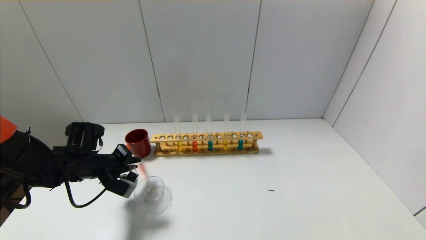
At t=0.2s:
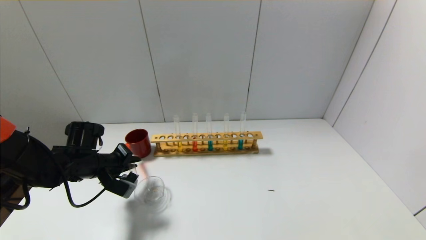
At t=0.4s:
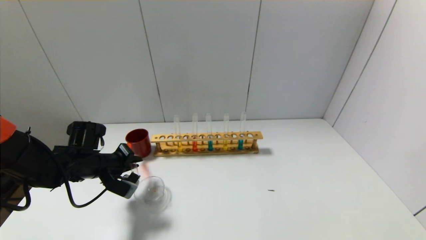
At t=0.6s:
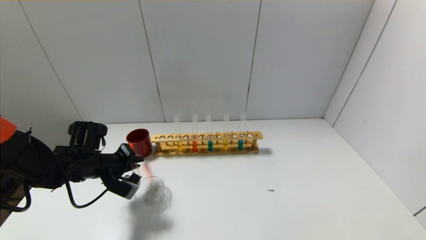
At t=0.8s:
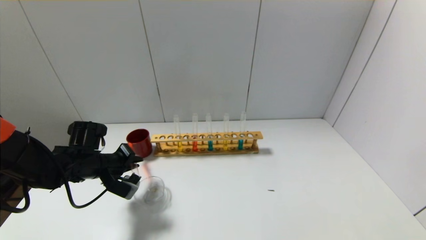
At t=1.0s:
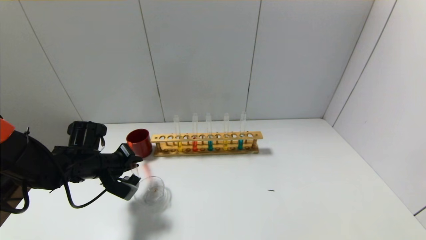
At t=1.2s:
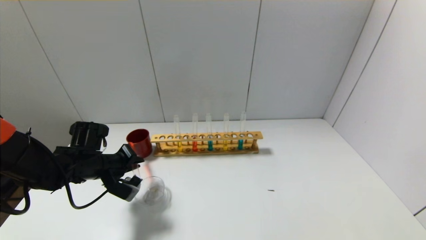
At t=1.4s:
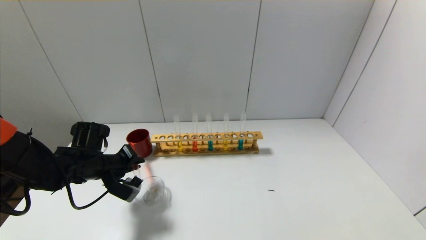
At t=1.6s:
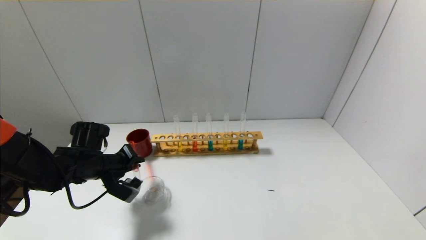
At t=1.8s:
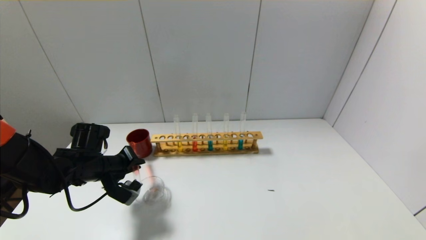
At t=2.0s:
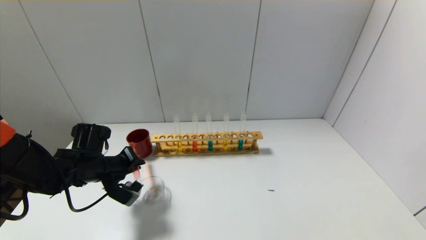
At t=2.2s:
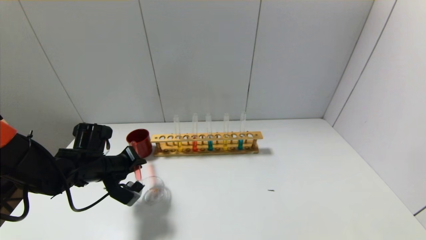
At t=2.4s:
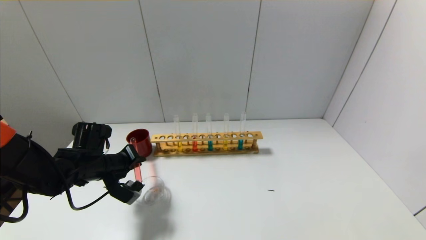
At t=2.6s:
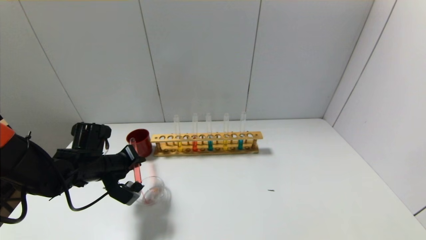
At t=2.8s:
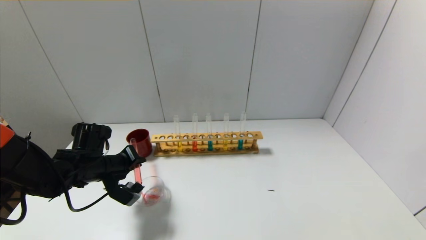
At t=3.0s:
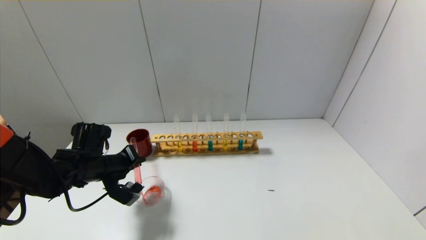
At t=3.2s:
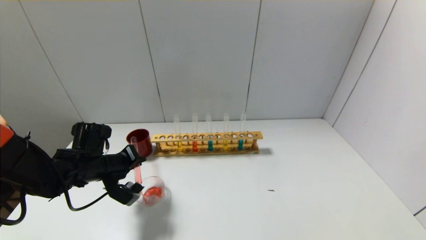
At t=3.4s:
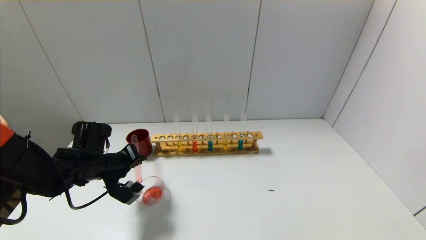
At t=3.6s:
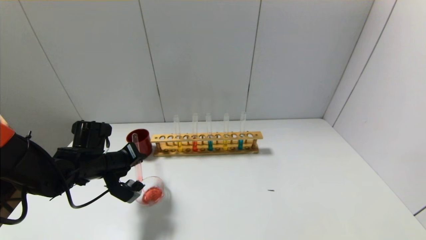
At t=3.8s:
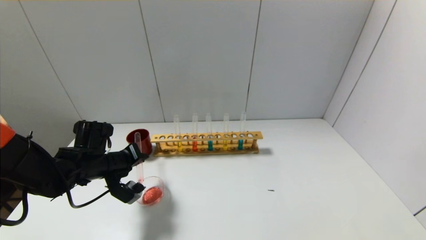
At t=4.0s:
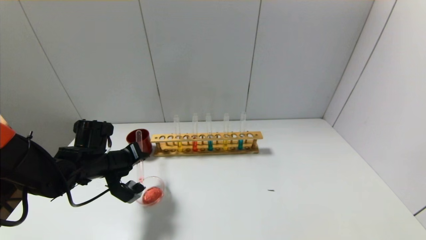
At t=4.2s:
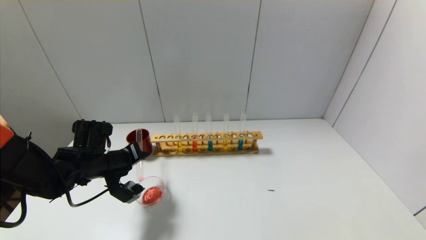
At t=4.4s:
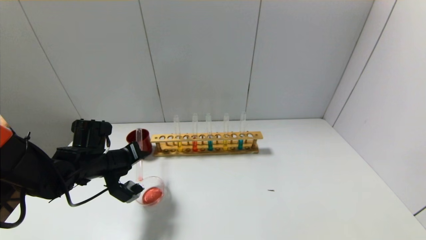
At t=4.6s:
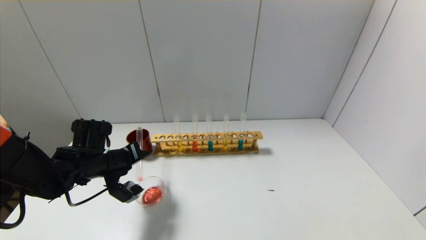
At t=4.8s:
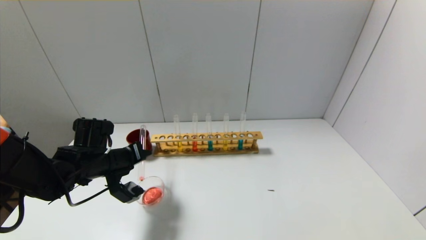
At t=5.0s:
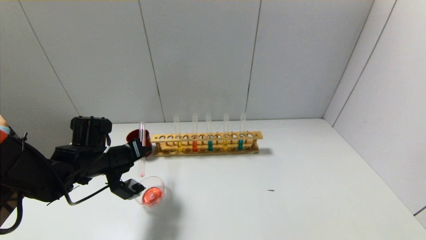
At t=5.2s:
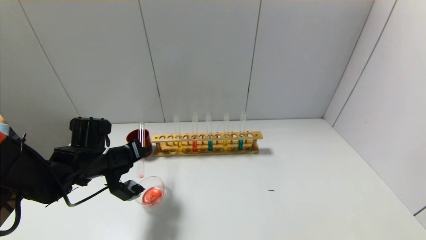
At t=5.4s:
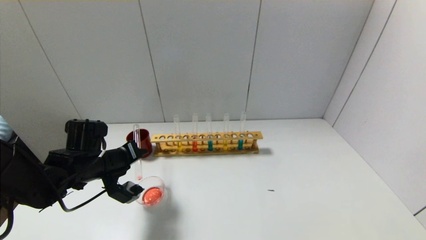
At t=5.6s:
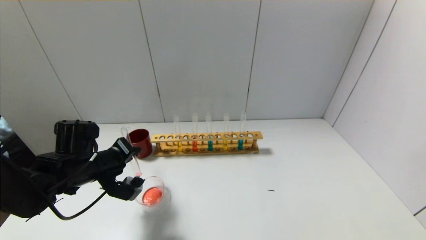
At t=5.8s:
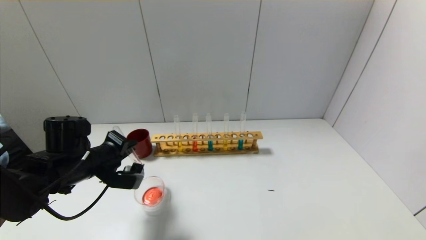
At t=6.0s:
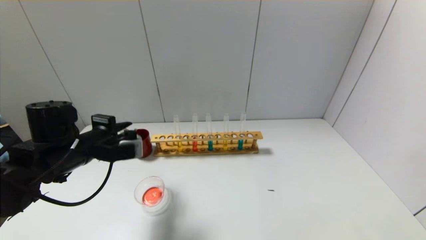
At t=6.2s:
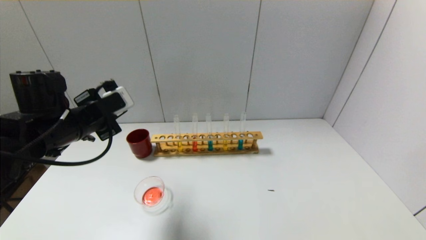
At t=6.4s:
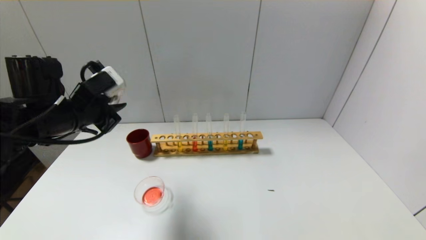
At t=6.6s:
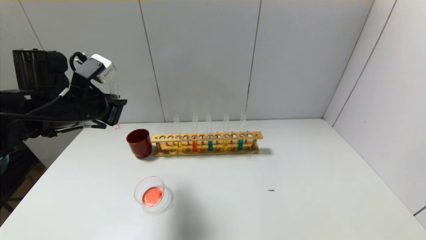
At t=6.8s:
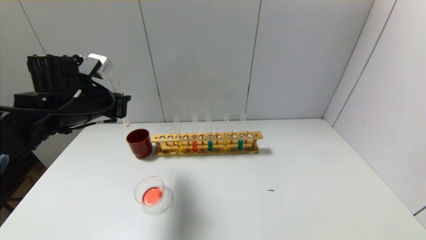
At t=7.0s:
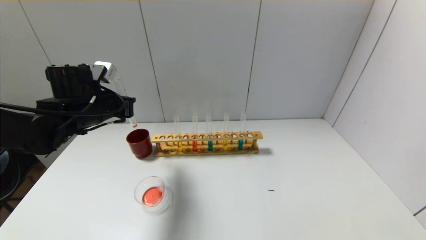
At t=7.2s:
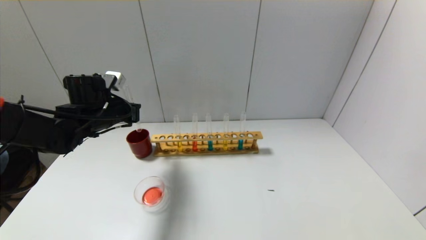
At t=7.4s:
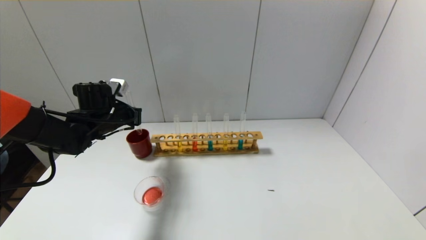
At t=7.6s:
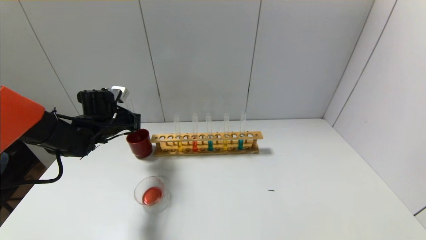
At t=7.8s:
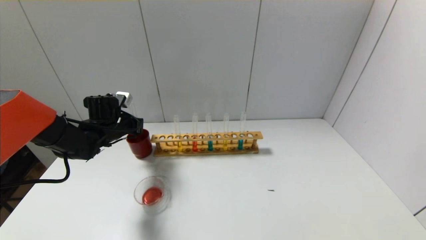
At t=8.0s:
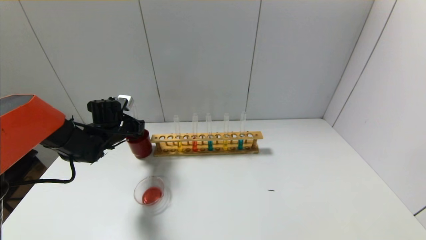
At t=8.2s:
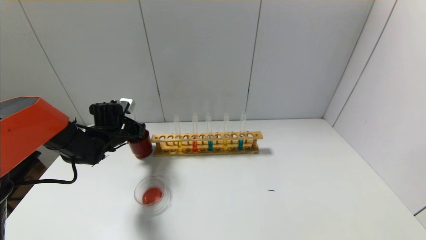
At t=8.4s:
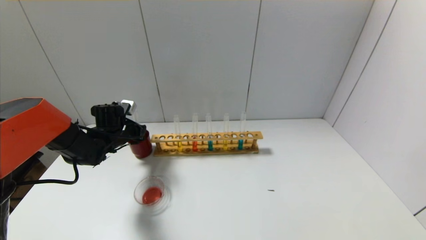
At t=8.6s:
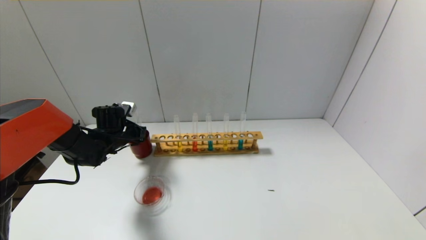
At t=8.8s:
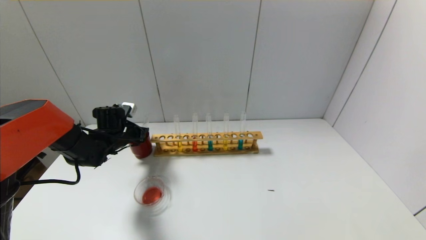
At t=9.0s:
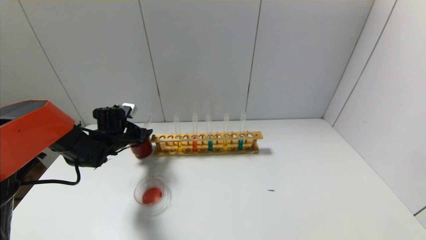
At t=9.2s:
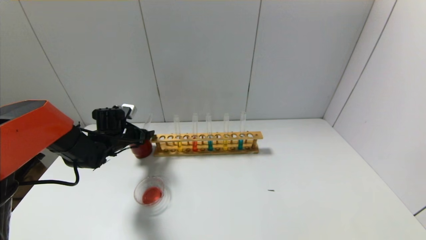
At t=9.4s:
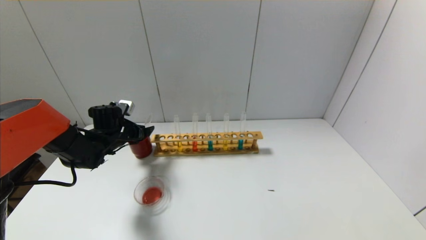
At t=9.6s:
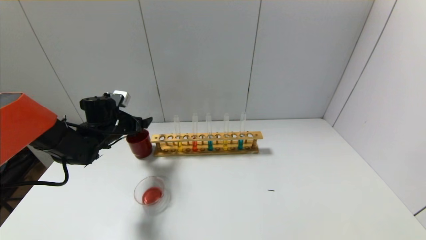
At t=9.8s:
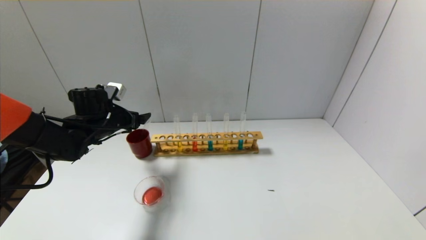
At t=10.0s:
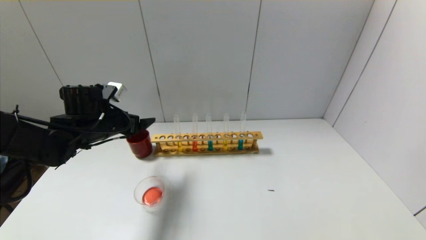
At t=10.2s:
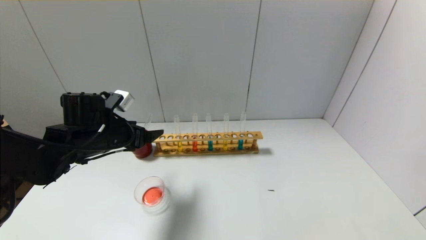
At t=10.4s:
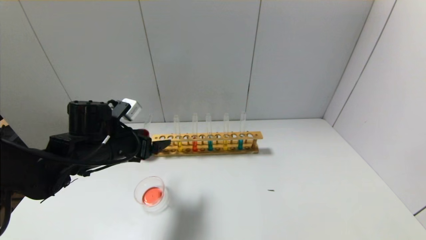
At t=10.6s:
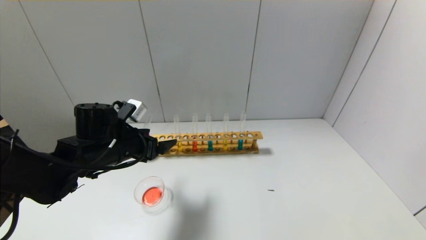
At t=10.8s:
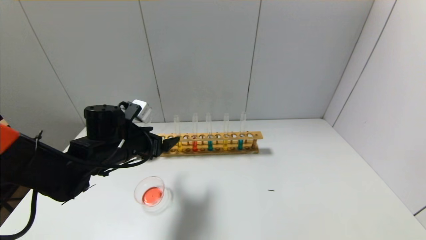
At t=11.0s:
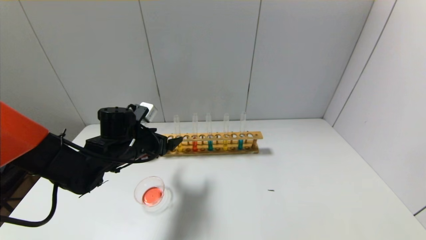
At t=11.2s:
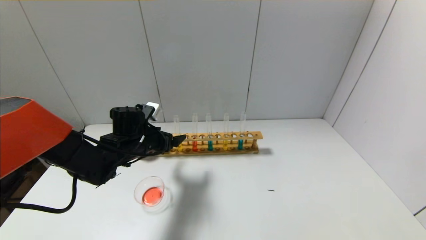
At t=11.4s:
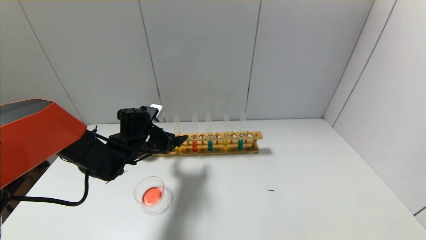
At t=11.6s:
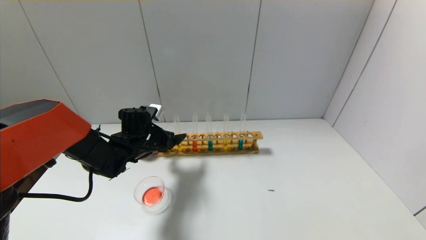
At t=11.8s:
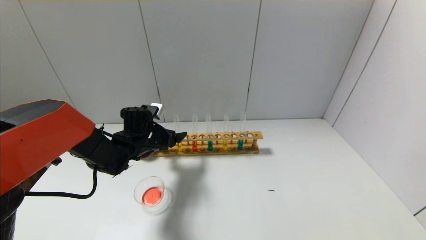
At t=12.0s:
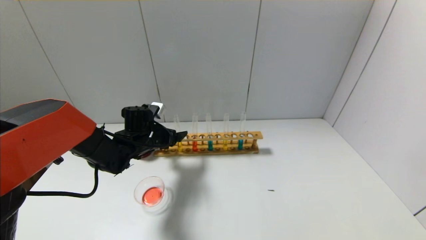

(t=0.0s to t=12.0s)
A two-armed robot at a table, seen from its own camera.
Step, t=0.0s - t=5.8s: Pour the red reagent into the graduated cylinder with the left gripper.
Step, t=6.0s - t=9.0s: Place the test tube into the brown cup with the left gripper.
t=0.0s - t=3.0s: The grippers stay close to where they were, moving slightly.
t=3.0s - t=4.4s: There are only small adjustments of the grippers.
t=4.4s - t=6.0s: The left gripper is displaced upward by roughly 10 cm.
t=6.0s - t=7.6s: The left gripper is displaced forward by about 15 cm.
t=7.6s - t=9.0s: The left gripper heads downward, covering some 5 cm, and opens up.
t=9.0s - t=10.4s: The left gripper travels backward, upward and to the right by approximately 15 cm.
t=10.4s - t=12.0s: The left gripper heads forward and downward, covering some 10 cm.

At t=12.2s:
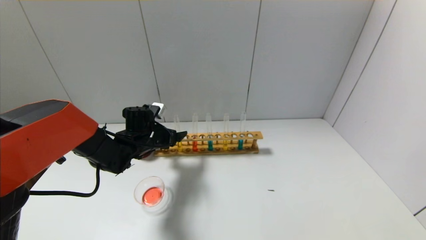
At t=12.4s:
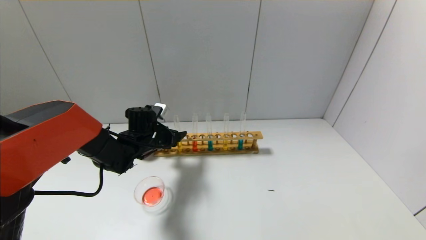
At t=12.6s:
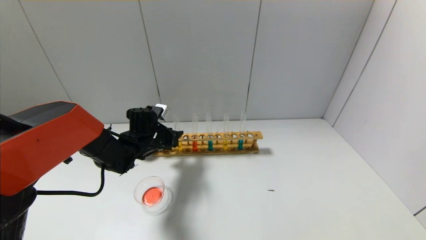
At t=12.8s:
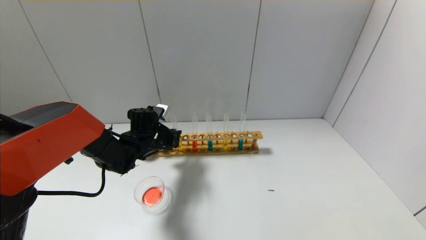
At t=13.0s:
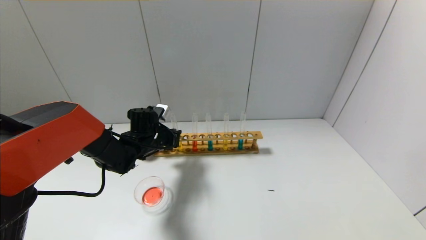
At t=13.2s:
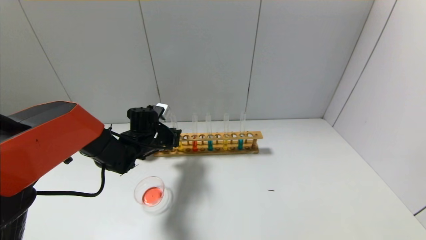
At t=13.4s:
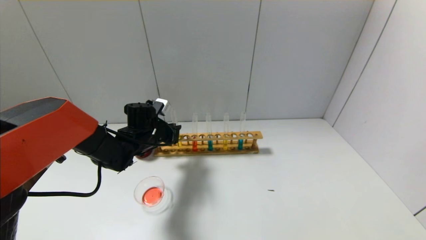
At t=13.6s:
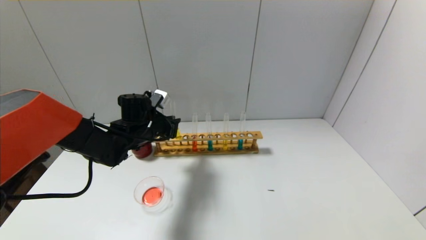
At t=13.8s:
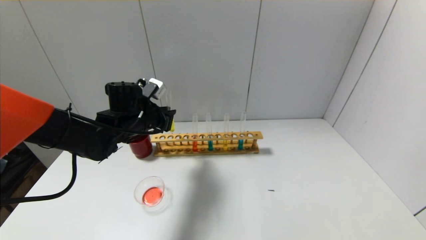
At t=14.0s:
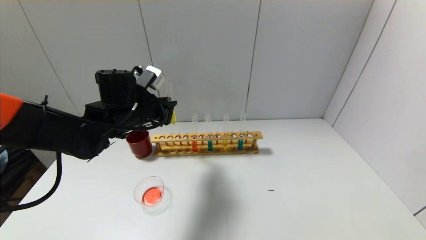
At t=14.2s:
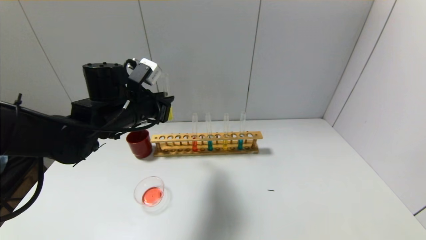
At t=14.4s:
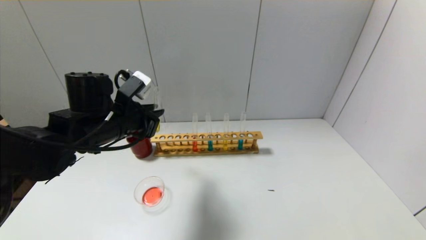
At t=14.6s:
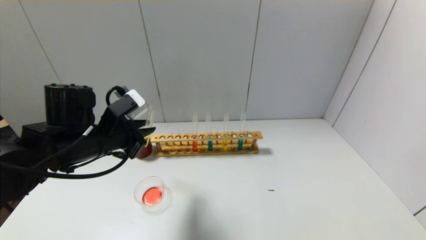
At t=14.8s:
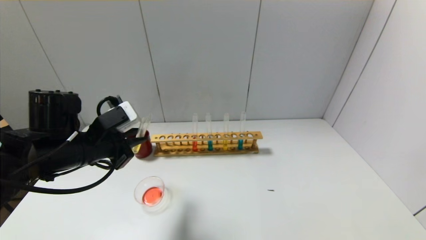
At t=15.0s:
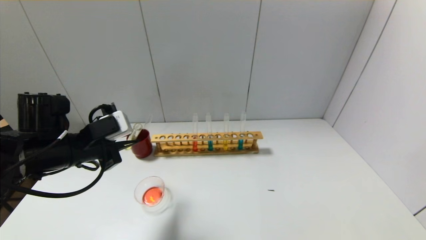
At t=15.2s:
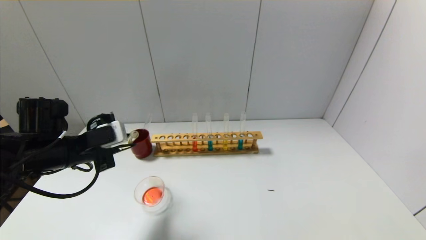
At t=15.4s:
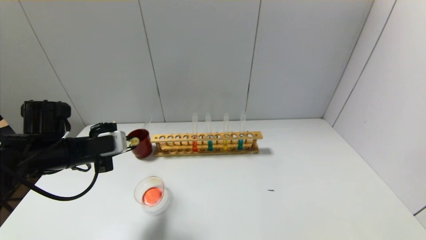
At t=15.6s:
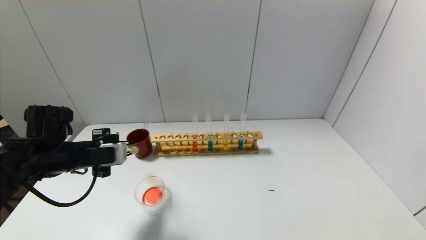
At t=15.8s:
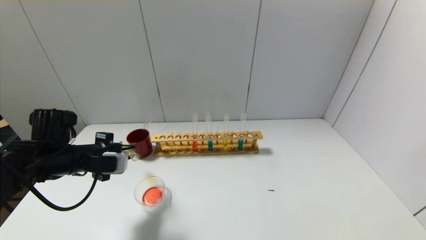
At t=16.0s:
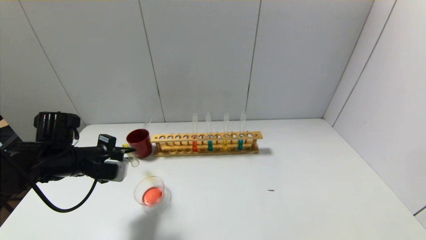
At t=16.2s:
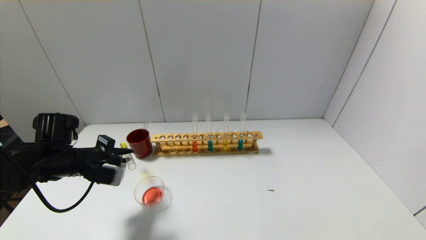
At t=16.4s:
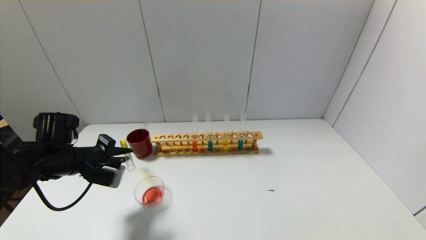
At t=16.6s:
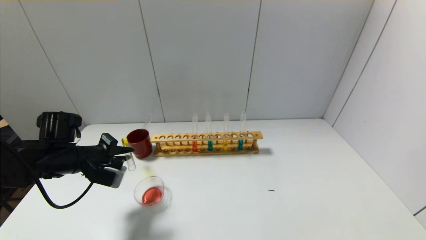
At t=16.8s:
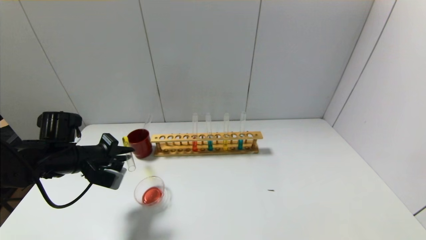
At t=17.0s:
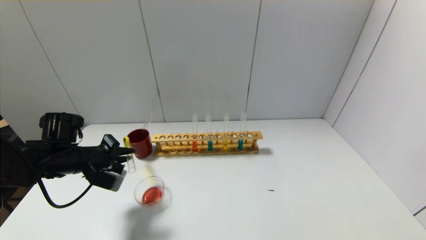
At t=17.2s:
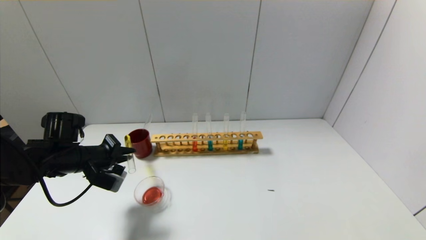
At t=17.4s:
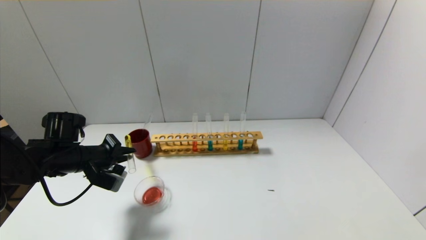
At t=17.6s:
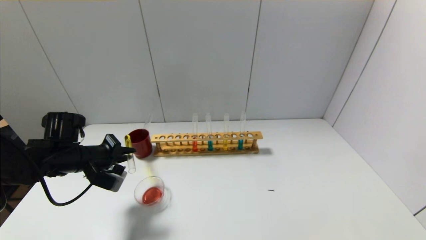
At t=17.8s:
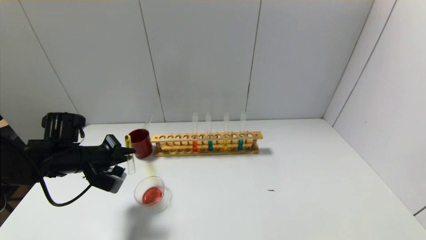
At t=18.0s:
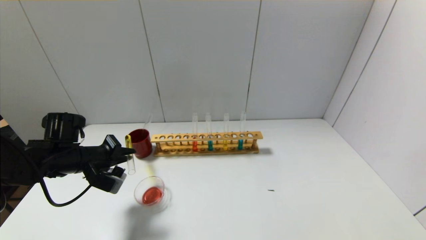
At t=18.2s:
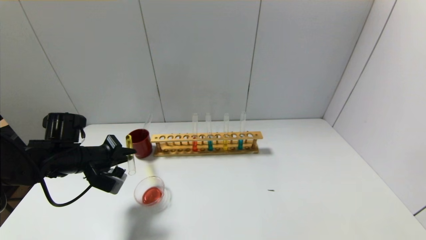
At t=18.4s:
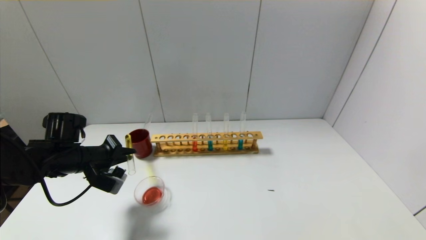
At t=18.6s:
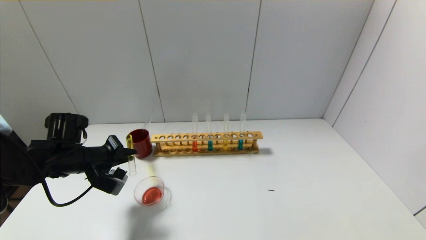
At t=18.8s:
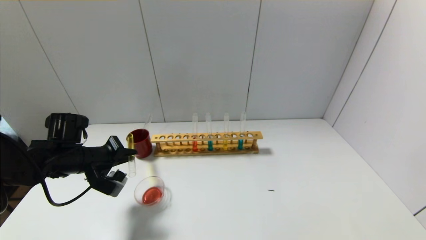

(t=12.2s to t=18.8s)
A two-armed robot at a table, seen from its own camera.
t=12.2s - t=13.8s: The left gripper shifts roughly 10 cm upward, and closes its fingers.
t=13.8s - t=15.4s: The left gripper goes approximately 15 cm to the left and backward.
t=15.4s - t=17.2s: The left gripper shifts by about 5 cm.
t=17.2s - t=18.8s: There are only small adjustments of the grippers.
